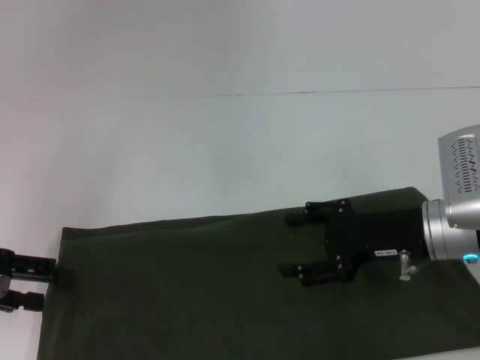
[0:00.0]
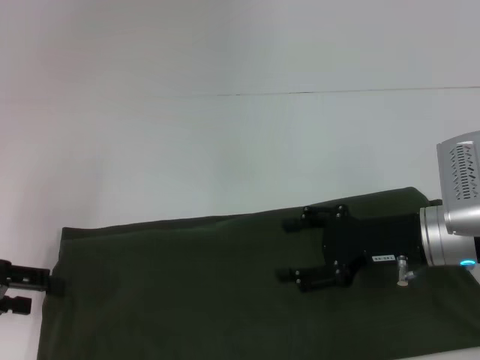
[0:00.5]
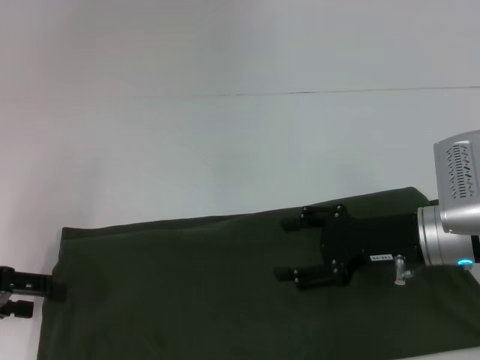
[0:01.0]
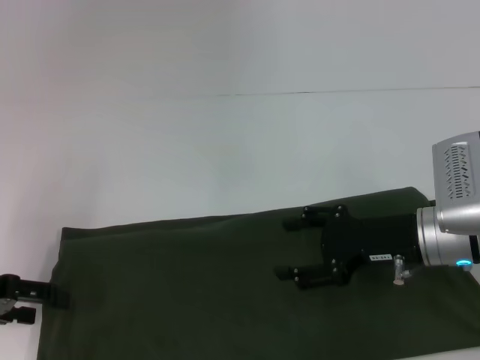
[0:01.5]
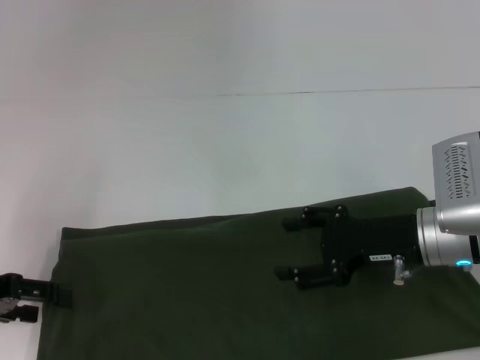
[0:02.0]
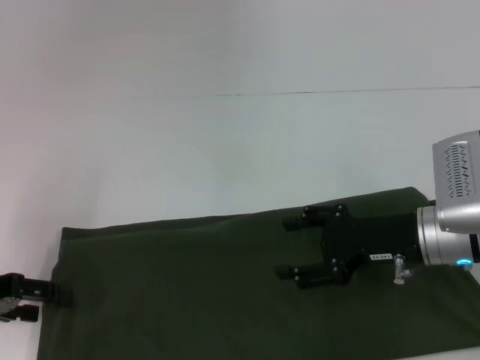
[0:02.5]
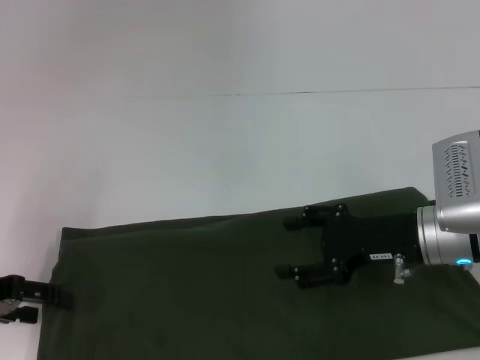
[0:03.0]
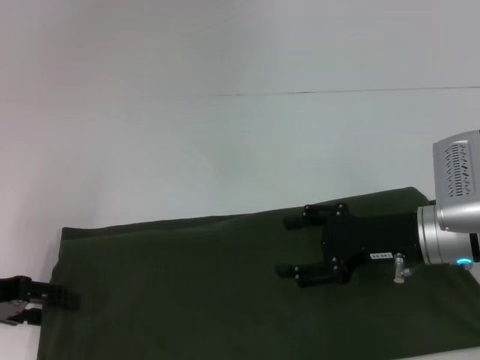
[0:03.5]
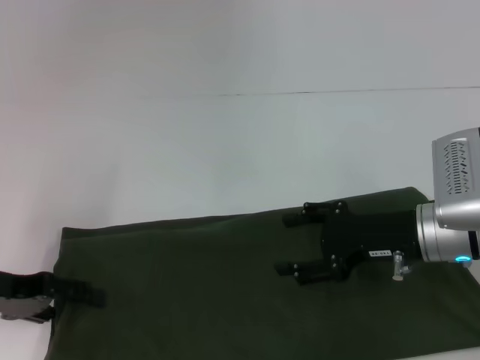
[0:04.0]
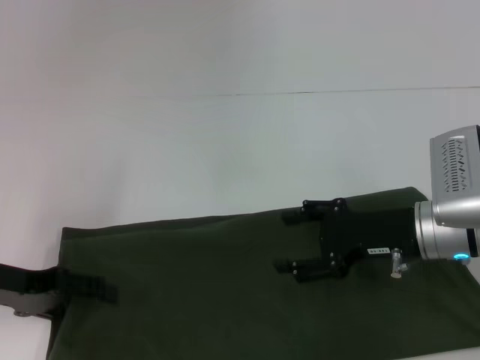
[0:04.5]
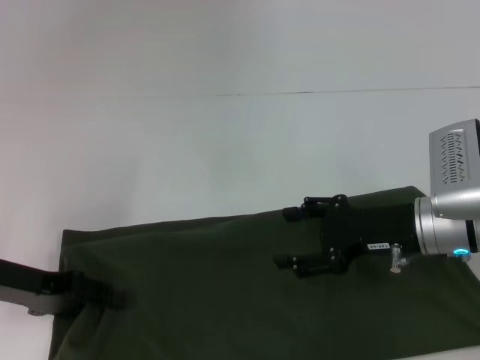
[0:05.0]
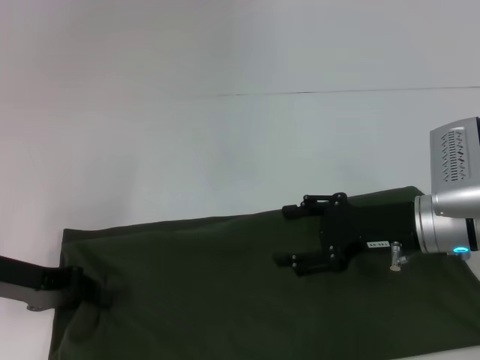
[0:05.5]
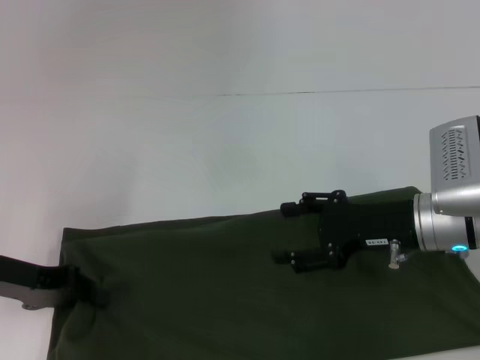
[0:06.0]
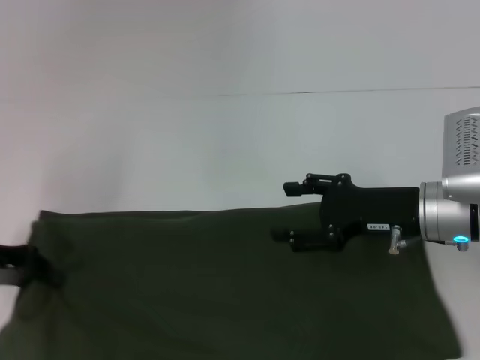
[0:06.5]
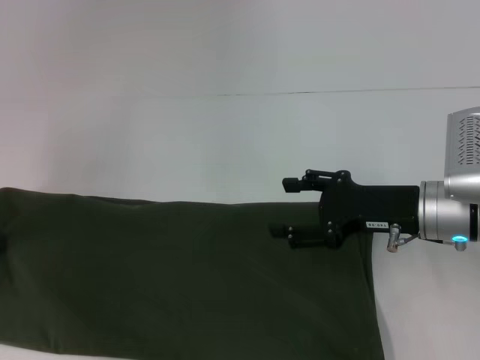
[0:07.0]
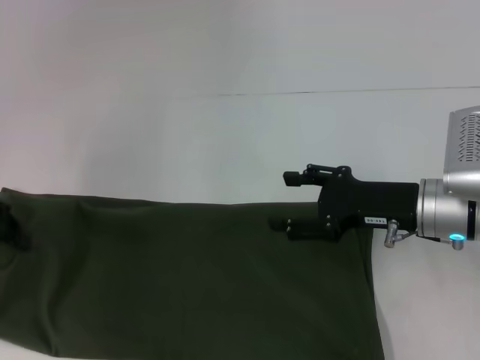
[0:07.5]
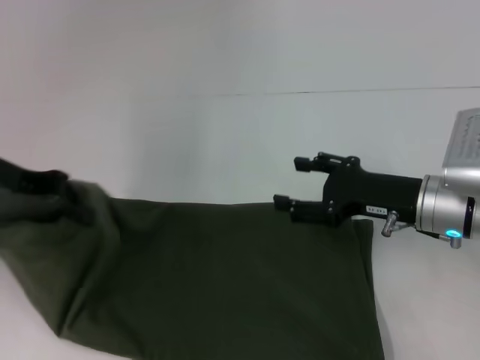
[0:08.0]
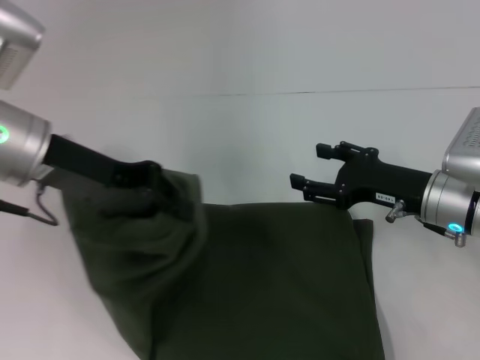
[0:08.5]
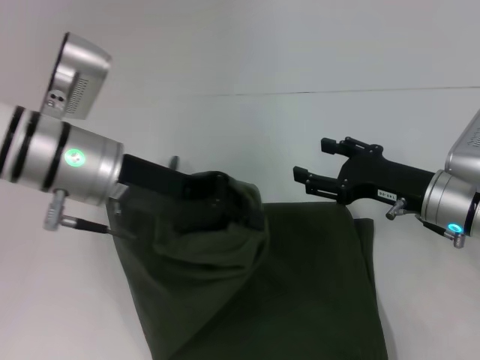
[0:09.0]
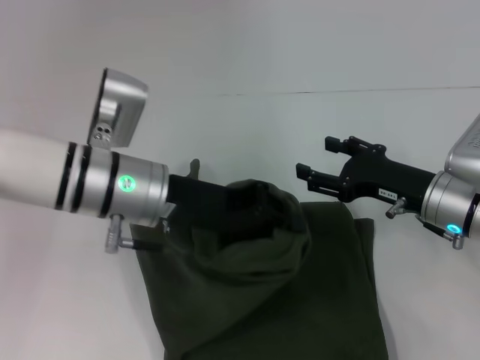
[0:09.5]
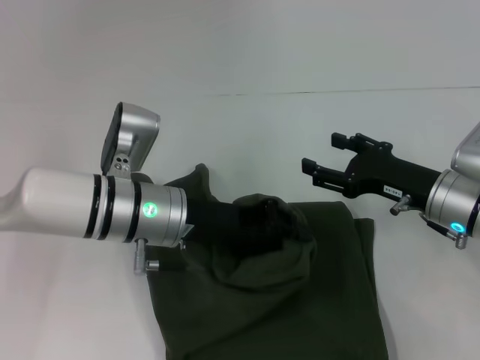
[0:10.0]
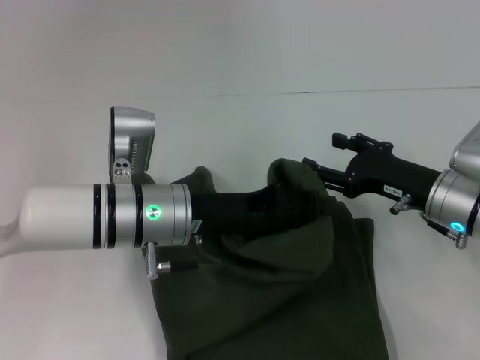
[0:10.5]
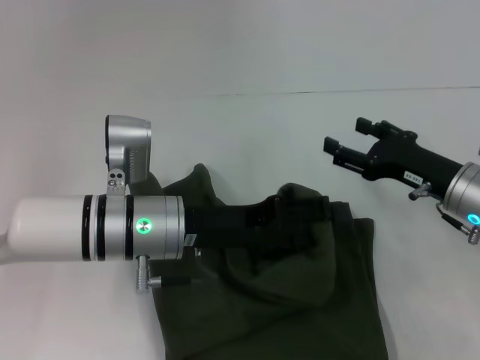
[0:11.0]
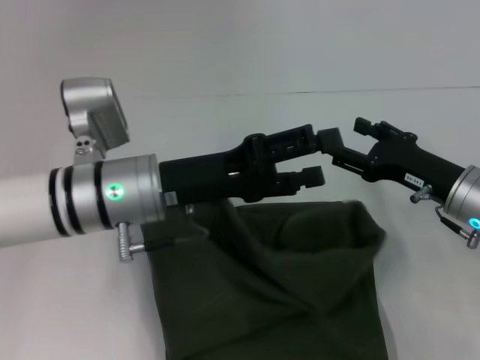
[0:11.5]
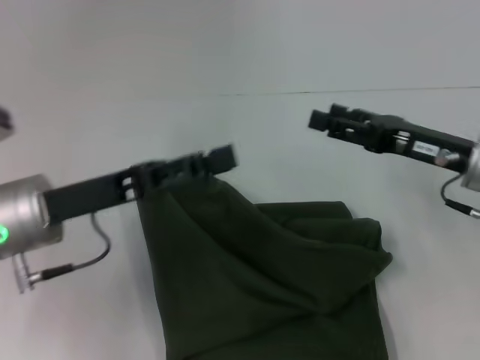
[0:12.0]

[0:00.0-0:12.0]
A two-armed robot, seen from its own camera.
Step, 0:00.0 to 0:11.5: Fold the clothes with your left hand.
0:00.0 to 0:04.0: The grippers stay close to where they were, moving slightly.
0:04.0 to 0:06.0: The left gripper closes its fingers.
0:06.0 to 0:08.0: The left gripper goes some 10 cm upward.
0:08.0 to 0:10.0: The left gripper shifts roughly 20 cm to the right and downward.
0:10.0 to 0:12.0: The left gripper shifts approximately 10 cm to the left, and opens, while the right gripper goes roughly 5 cm upward.

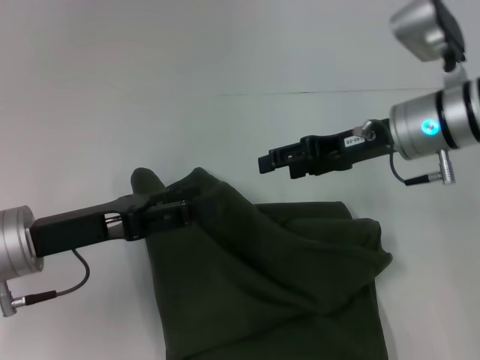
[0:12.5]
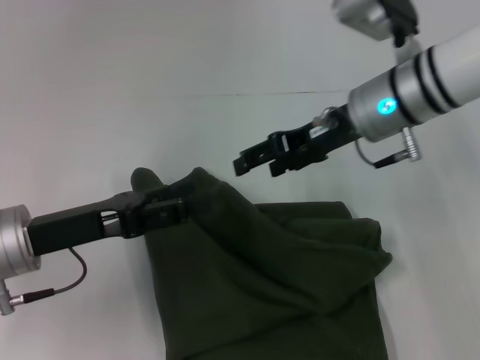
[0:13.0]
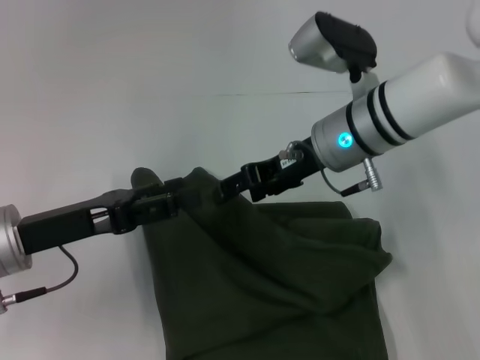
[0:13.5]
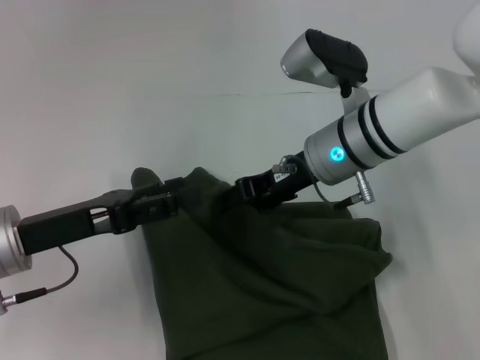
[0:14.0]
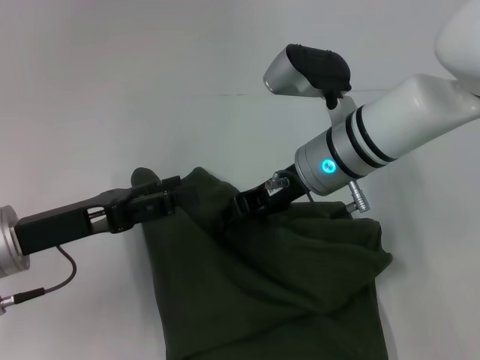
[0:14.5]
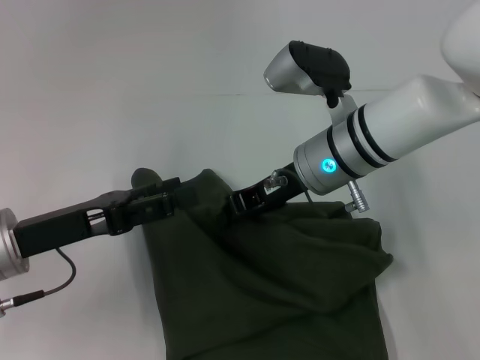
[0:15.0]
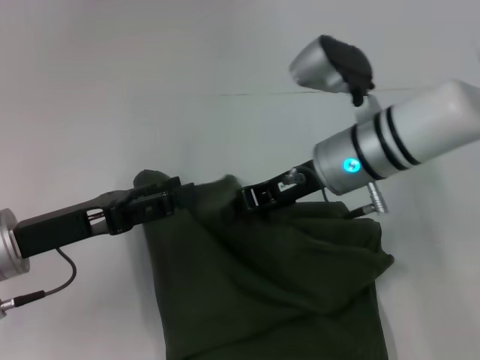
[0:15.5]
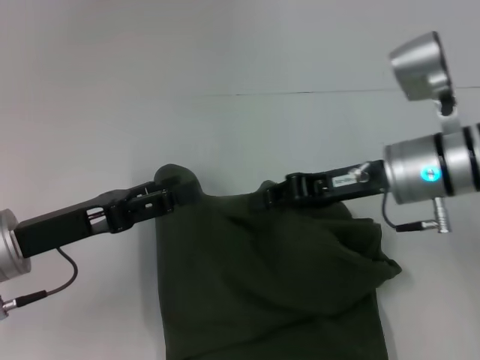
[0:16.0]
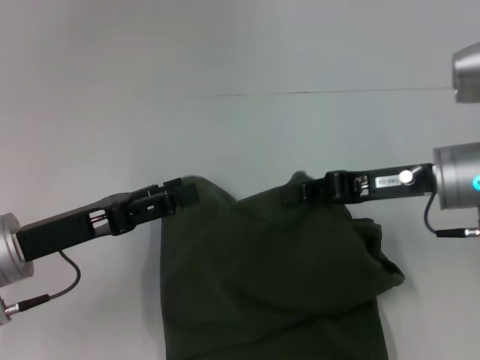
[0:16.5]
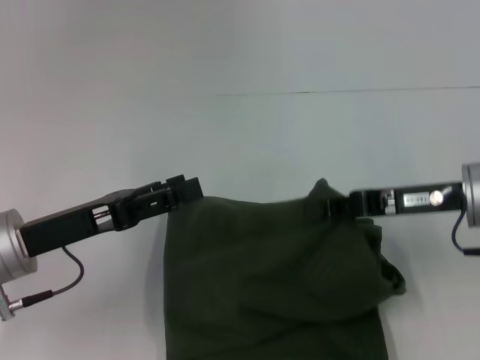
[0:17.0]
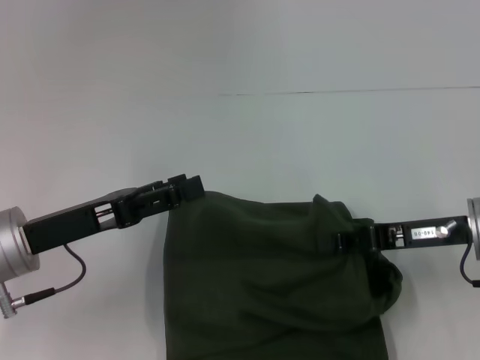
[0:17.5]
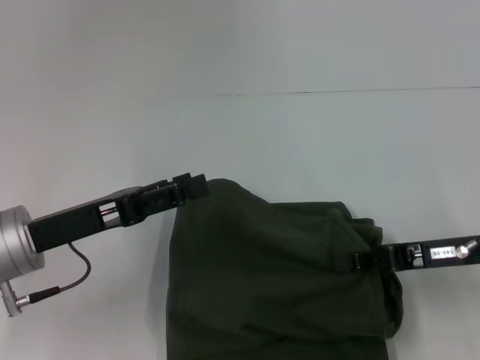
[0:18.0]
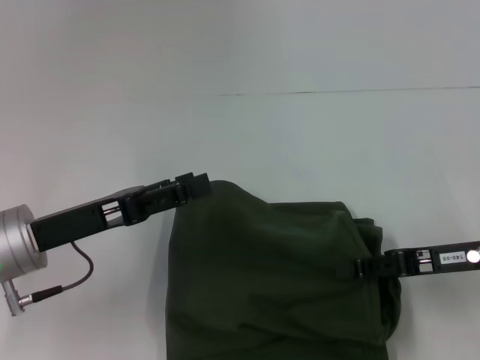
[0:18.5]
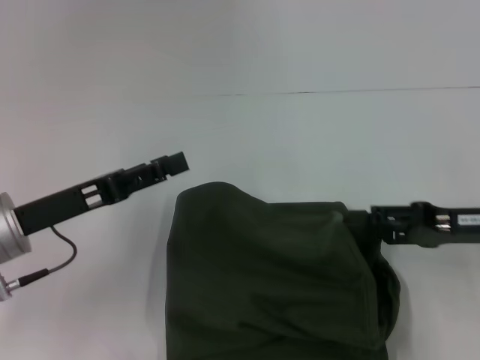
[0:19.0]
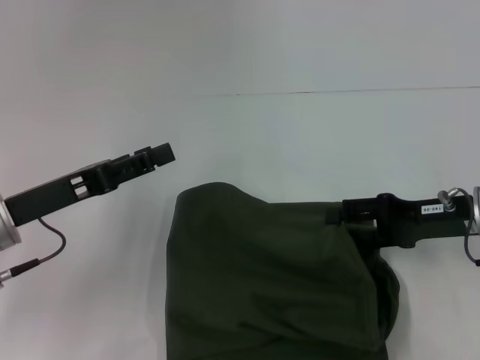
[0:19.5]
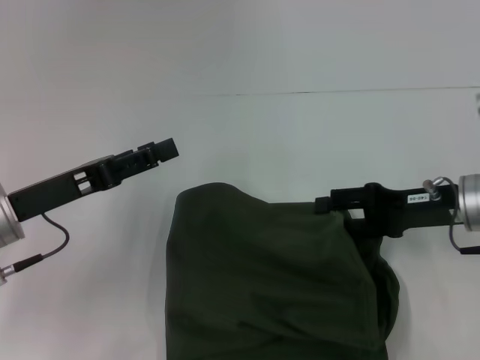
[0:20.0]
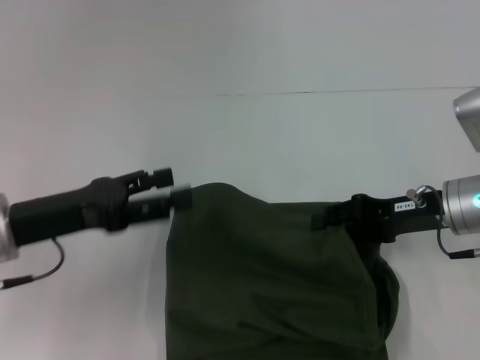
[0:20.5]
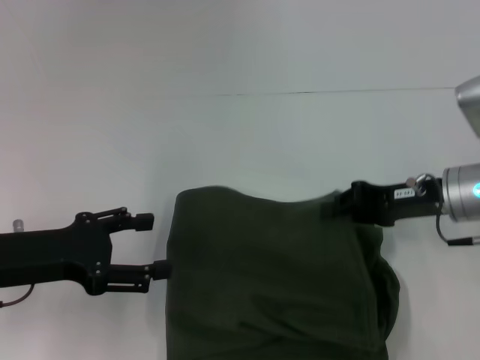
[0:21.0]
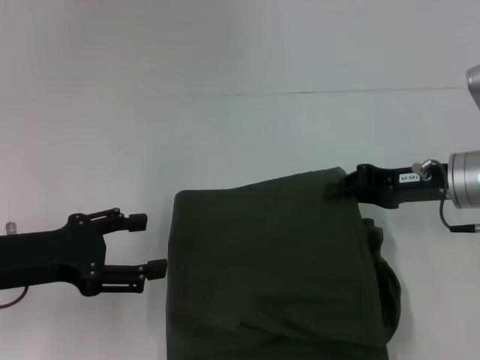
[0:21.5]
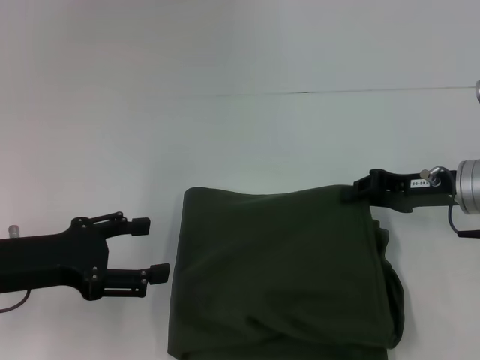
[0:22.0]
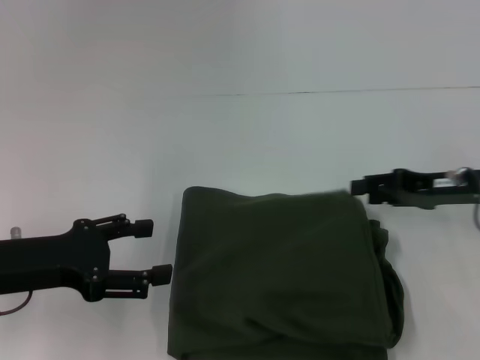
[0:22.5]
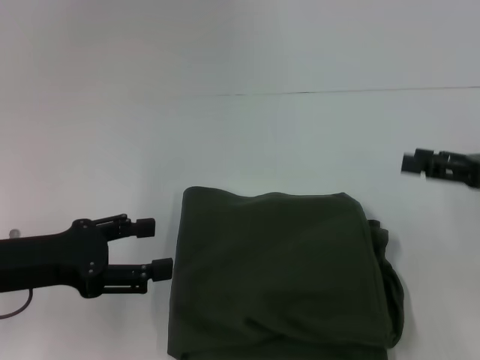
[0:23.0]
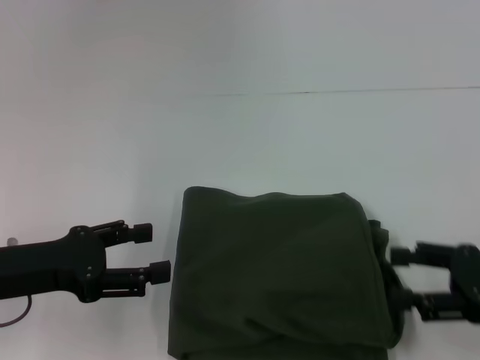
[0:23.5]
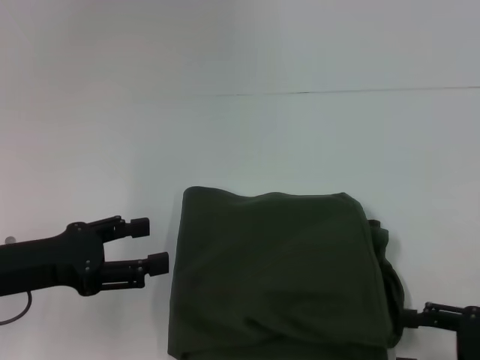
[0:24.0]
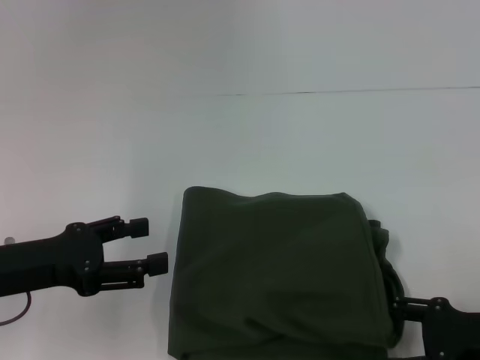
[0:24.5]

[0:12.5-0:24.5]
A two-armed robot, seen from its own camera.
0:12.5 to 0:14.5: The right gripper goes approximately 10 cm to the left, and closes up.
0:14.5 to 0:16.5: The right gripper shifts roughly 10 cm to the right, and closes up.
0:16.5 to 0:18.5: The right gripper heads to the right and backward, covering some 5 cm.
0:18.5 to 0:20.5: The right gripper moves forward, about 5 cm, and opens.
0:20.5 to 0:22.5: The right gripper closes and opens again.
0:22.5 to 0:24.5: The right gripper heads backward, covering approximately 15 cm, and opens.

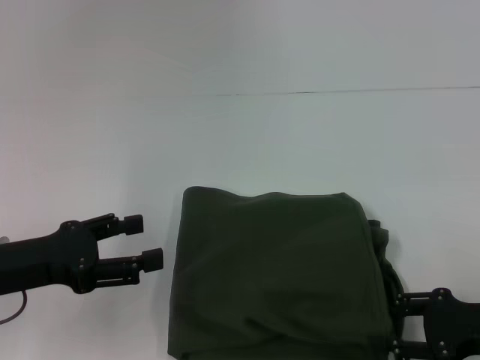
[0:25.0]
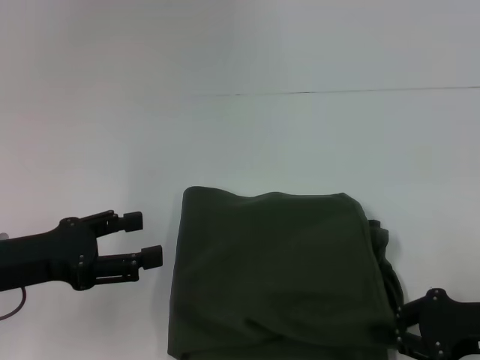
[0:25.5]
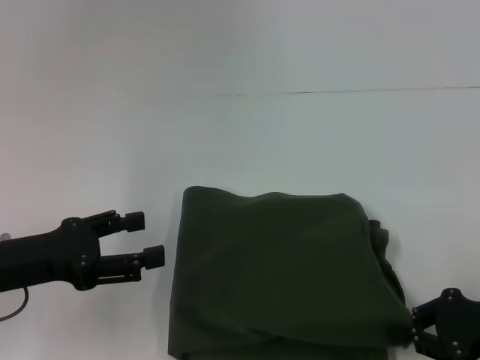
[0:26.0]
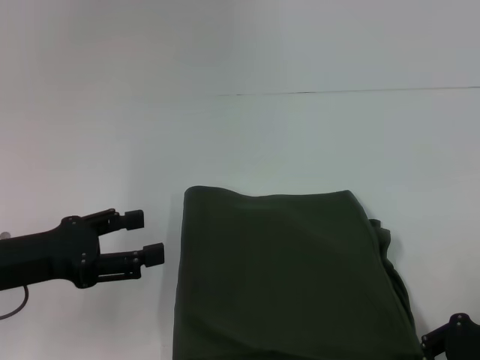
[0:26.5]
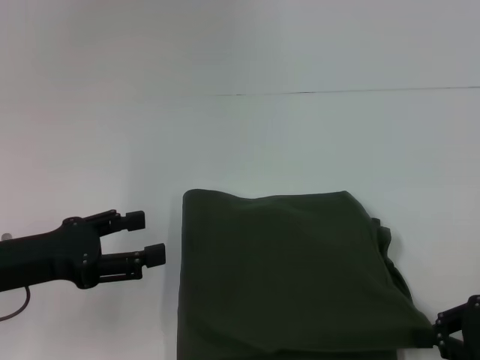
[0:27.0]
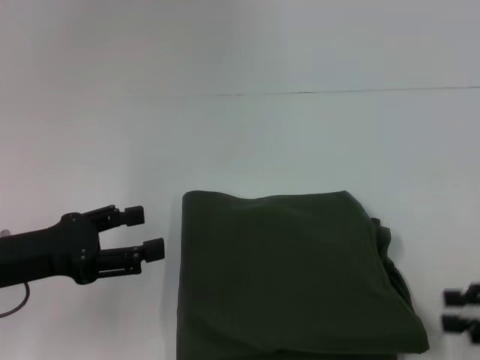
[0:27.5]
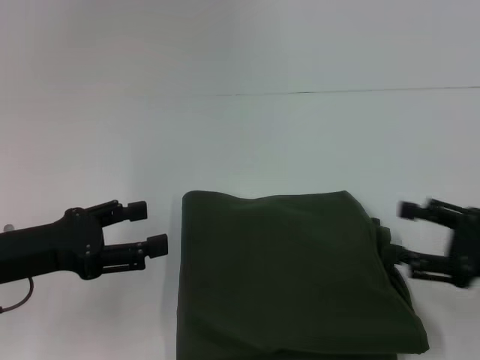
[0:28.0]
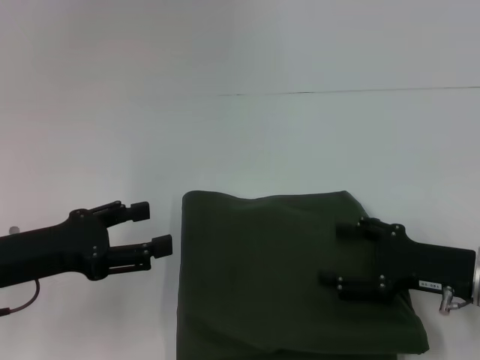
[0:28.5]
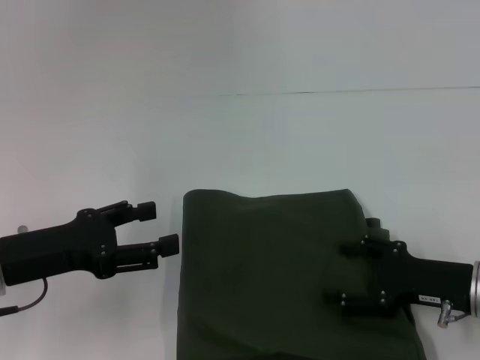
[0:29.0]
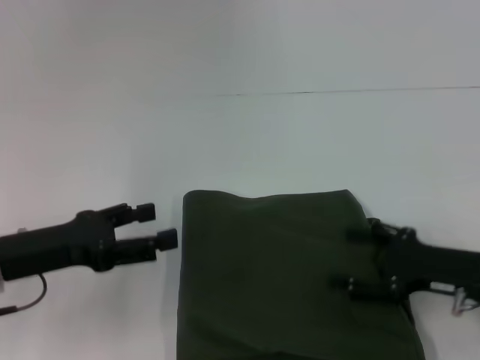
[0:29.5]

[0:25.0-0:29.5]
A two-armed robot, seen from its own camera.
0:25.0 to 0:27.0: The right gripper closes its fingers.
0:27.0 to 0:29.5: The right gripper heads to the left, covering some 5 cm, and opens up.
